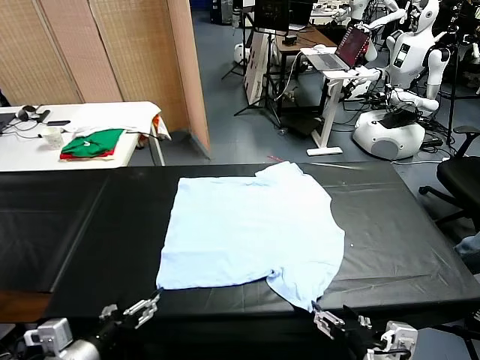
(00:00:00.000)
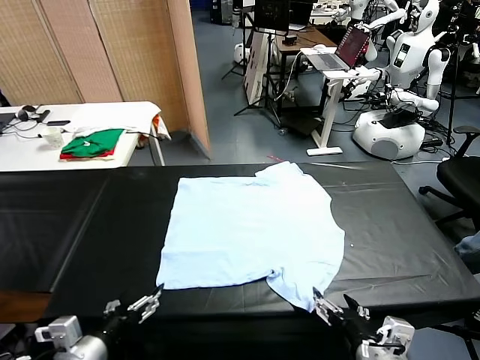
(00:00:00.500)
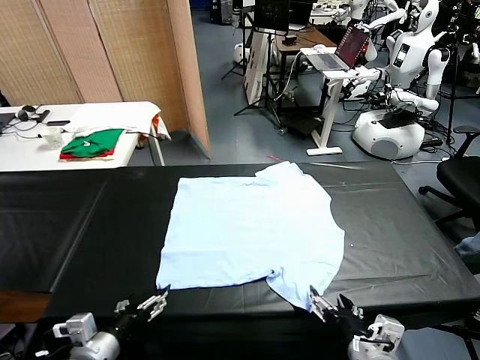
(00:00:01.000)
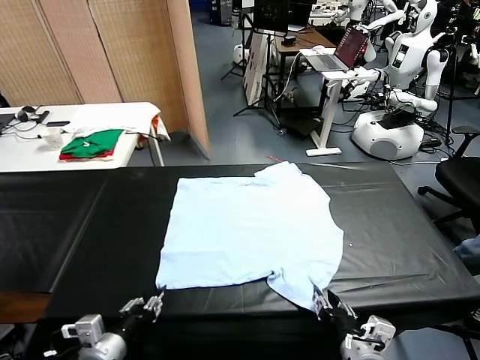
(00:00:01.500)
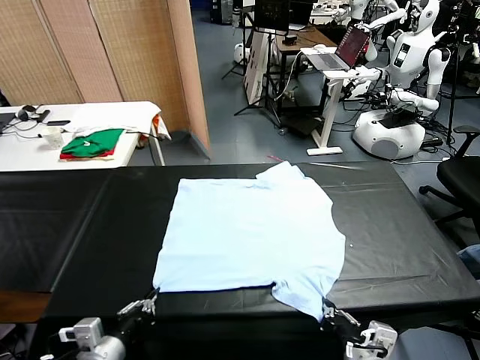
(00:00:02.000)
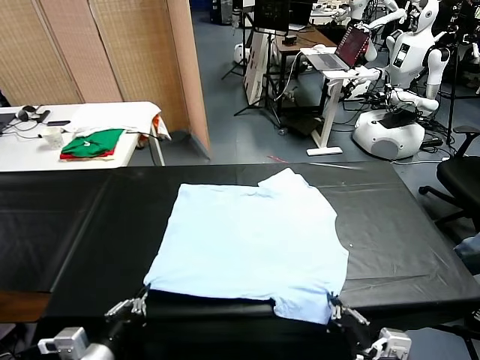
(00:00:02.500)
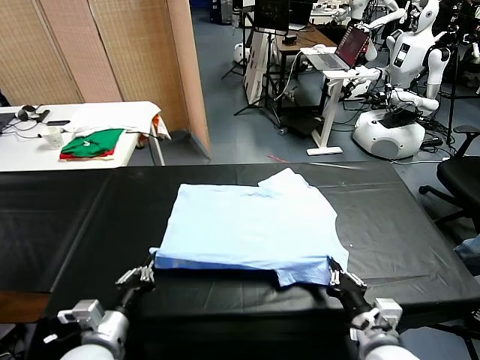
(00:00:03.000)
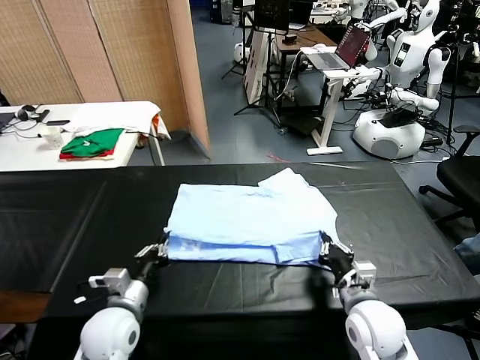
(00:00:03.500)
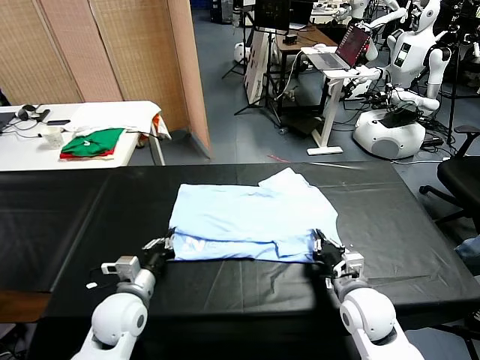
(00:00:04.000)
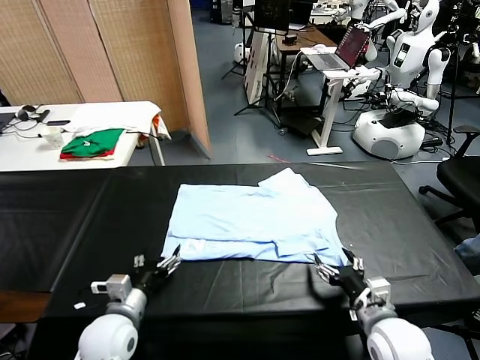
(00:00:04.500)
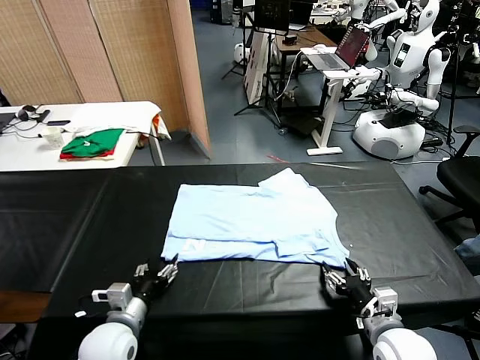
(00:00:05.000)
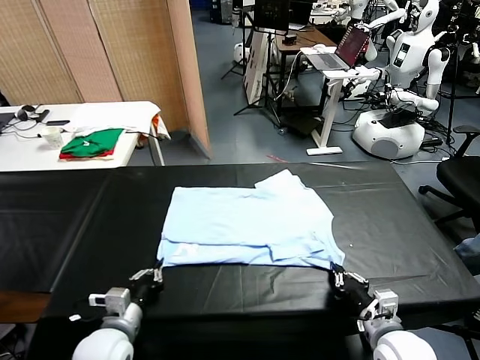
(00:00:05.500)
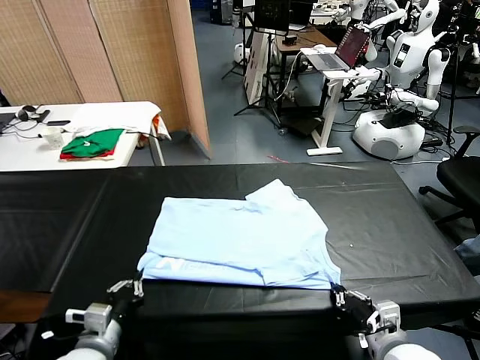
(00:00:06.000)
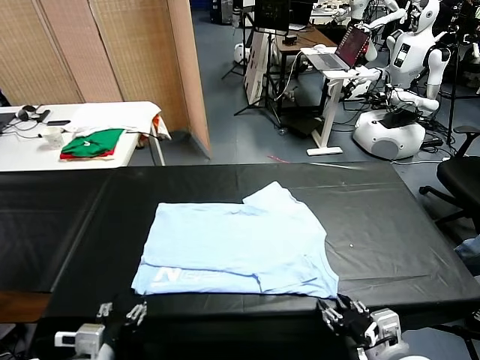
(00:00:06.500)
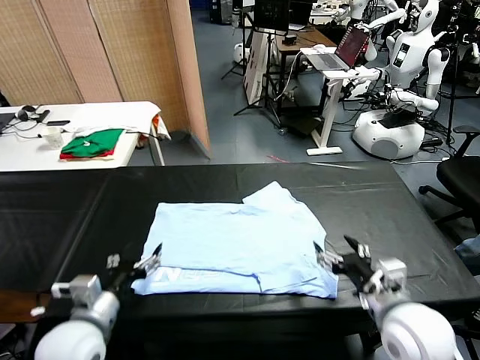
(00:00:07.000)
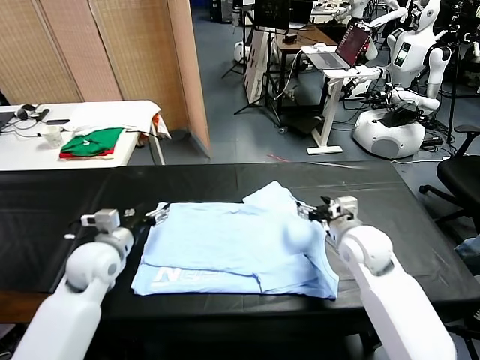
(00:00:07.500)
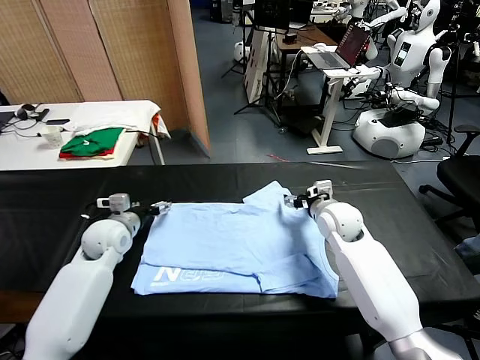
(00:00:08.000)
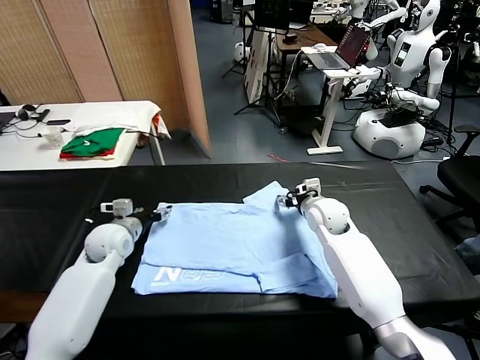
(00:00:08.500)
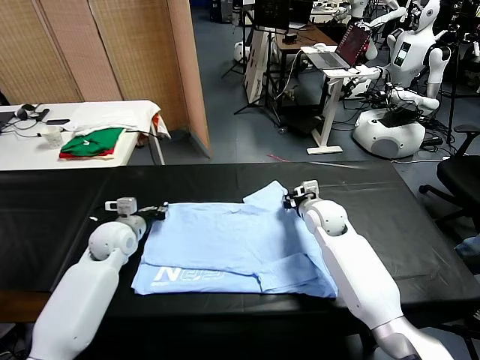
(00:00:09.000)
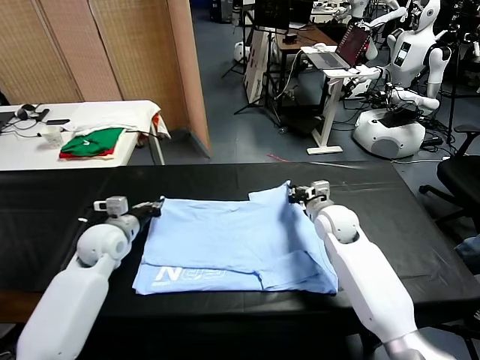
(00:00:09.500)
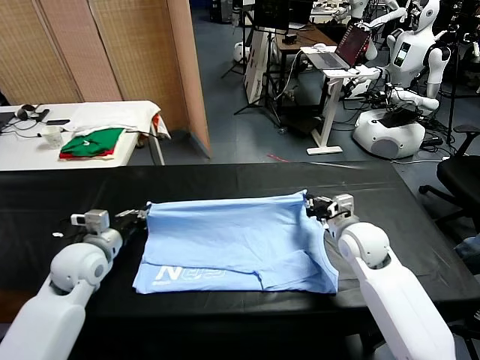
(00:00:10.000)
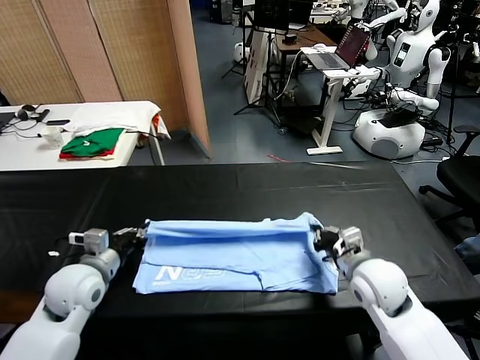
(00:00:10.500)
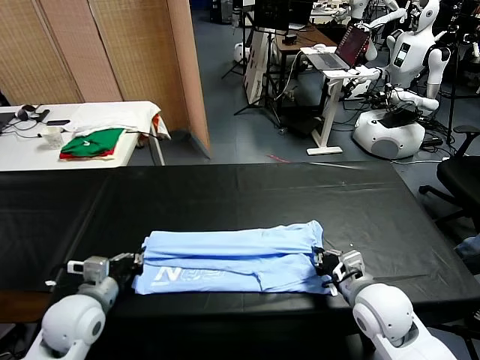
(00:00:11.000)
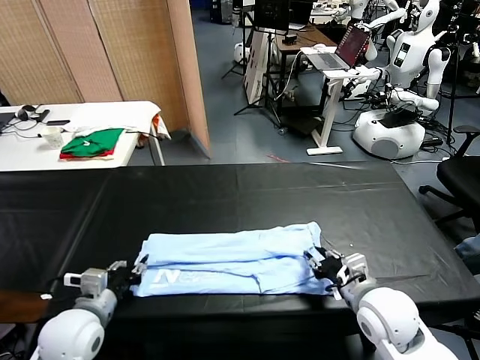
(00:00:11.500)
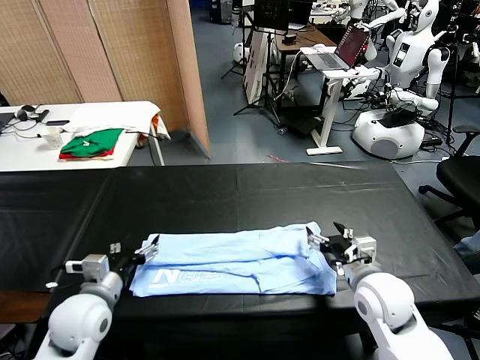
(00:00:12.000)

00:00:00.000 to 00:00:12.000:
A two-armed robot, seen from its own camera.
Task of the whole recording: fold and organize the clothes.
Step, 00:00:00.000 to 00:00:01.500: use both grippers simultaneously to clamp the lower edge of the clothing fabric.
Step, 00:00:02.000 to 00:00:04.000: use both grippers to drag the lower edge of the fabric forward and fold it over the upper edge.
Step, 00:00:04.500 to 00:00:06.500: Drag the clothes downward with both gripper.
Step, 00:00:07.000 to 00:00:08.500: use both grippers simultaneously to clamp the upper edge of the clothing fabric.
Step, 00:00:09.000 to 00:00:11.500: use both grippers to drag the upper edge of the fabric backward and fold it over the lower edge.
00:00:02.000 to 00:00:04.000: The grippers both shift forward by roughly 15 cm. The left gripper opens its fingers; the right gripper opens its fingers.
00:00:04.000 to 00:00:06.000: The two grippers go some 10 cm backward. The right gripper closes up. The left gripper closes its fingers.
00:00:06.000 to 00:00:08.000: The two grippers go some 30 cm forward. The right gripper opens. Meanwhile the left gripper opens up.
00:00:08.000 to 00:00:10.000: The right gripper moves backward and to the right, roughly 10 cm, and closes up; the left gripper travels backward by approximately 10 cm, and closes its fingers.
00:00:10.000 to 00:00:12.000: The two grippers go about 10 cm backward. The right gripper opens, while the left gripper opens.

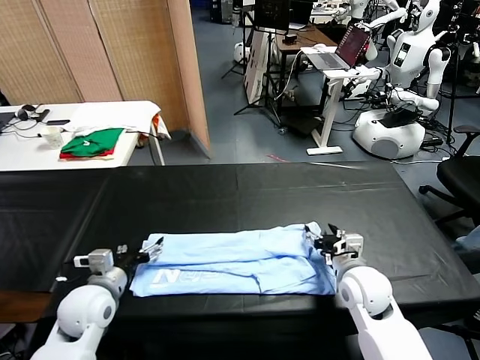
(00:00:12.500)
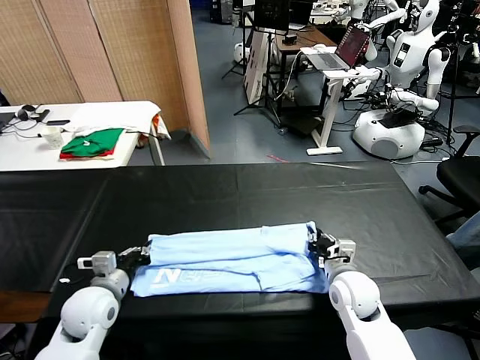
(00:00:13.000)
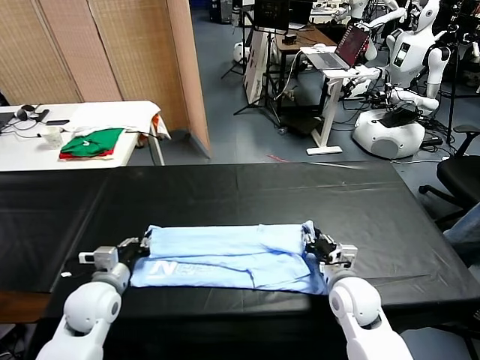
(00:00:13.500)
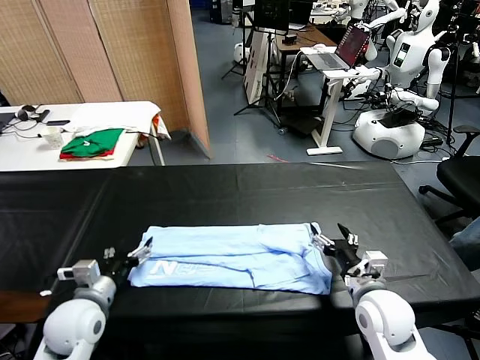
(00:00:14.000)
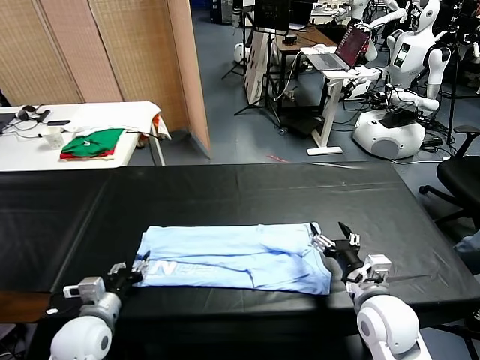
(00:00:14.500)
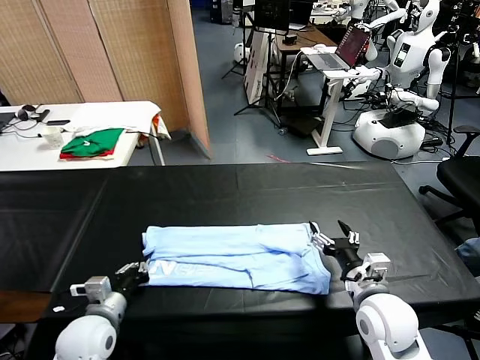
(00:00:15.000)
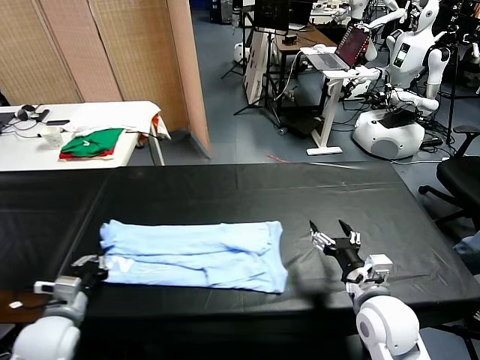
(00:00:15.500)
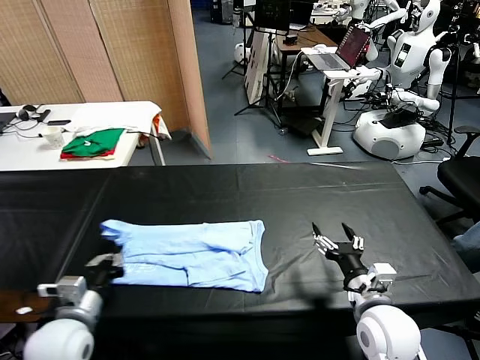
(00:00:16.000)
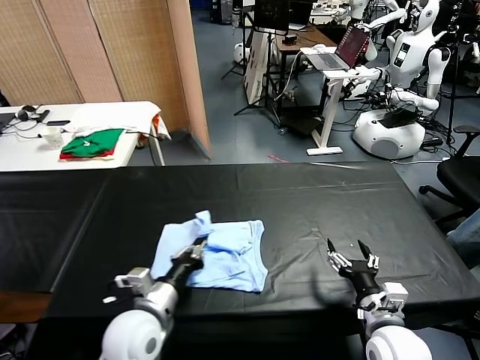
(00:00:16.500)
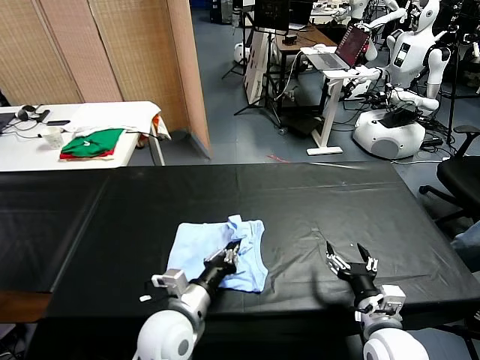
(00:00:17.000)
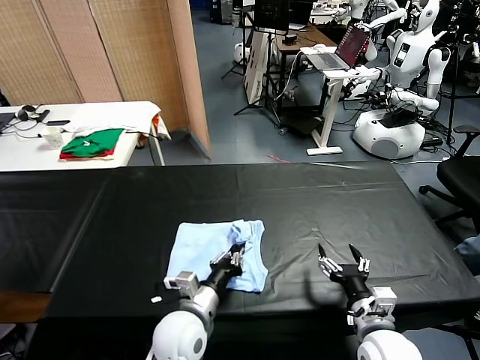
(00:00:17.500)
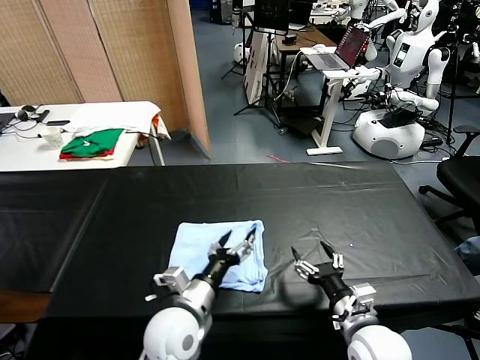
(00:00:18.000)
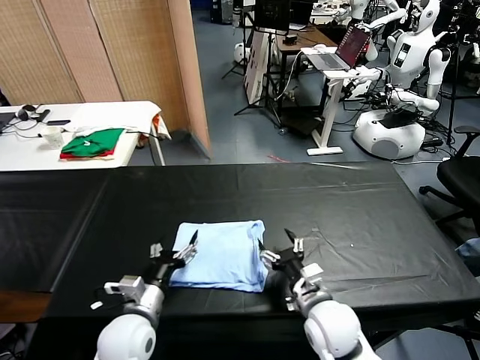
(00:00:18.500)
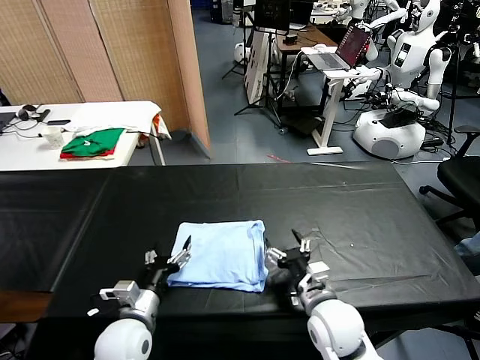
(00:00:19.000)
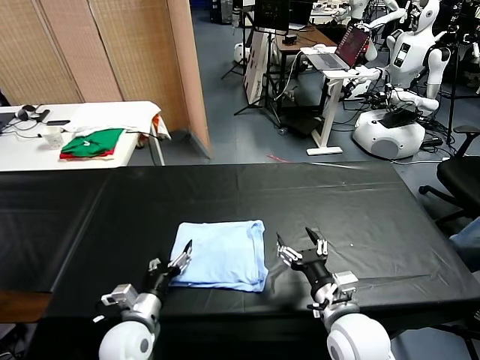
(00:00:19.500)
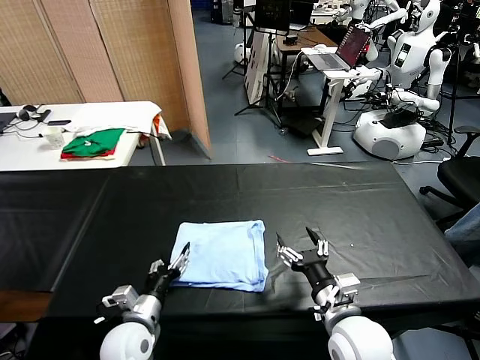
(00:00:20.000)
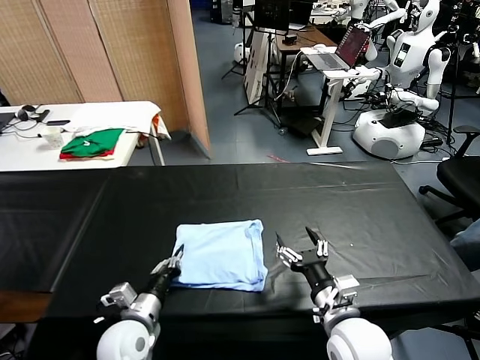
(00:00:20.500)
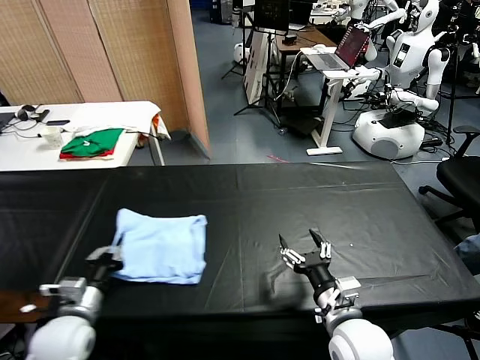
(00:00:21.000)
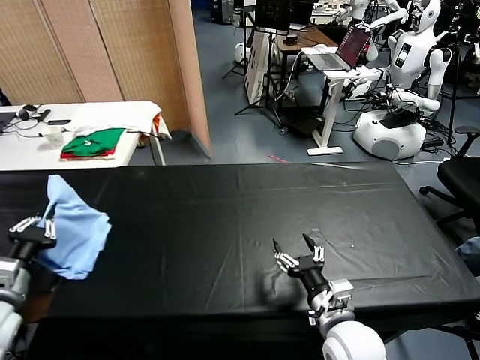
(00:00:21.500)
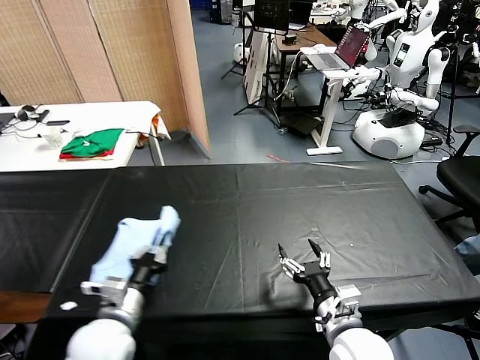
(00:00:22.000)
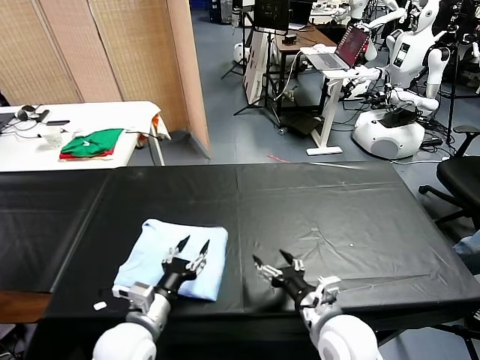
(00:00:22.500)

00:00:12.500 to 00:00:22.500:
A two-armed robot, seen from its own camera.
Task of the whole recording: fold and organize the clothes.
Step, 00:00:12.500 to 00:00:14.500: use the left gripper to clamp the left edge of the fabric.
Step, 00:00:15.000 to 00:00:17.500: use the left gripper to drag the left edge of the fabric to the left and folds it over the right edge.
Step, 00:00:18.000 to 00:00:22.000: Flip the folded clothes over with left gripper.
00:00:12.500 to 00:00:14.500: The grippers both shift backward by about 5 cm. The left gripper closes. The right gripper closes, then opens again.
00:00:14.500 to 00:00:16.500: The left gripper travels to the right by roughly 10 cm, and closes up; the right gripper ends up some 5 cm from where it was.
00:00:16.500 to 00:00:18.500: The right gripper moves to the left and forward, roughly 10 cm, while the left gripper travels to the right and back again, approximately 5 cm each way, and opens up.
00:00:18.500 to 00:00:20.500: The right gripper shifts by about 5 cm; the left gripper closes up.
00:00:20.500 to 00:00:22.500: The left gripper travels upward by approximately 5 cm, travels to the left and back again, roughly 20 cm each way, and opens up.

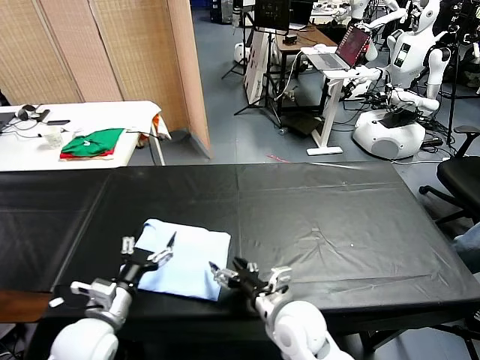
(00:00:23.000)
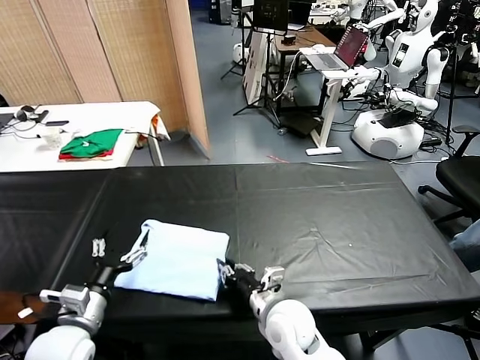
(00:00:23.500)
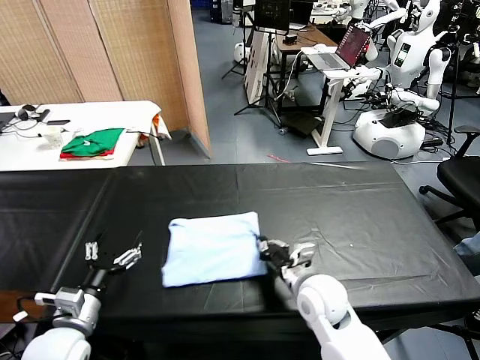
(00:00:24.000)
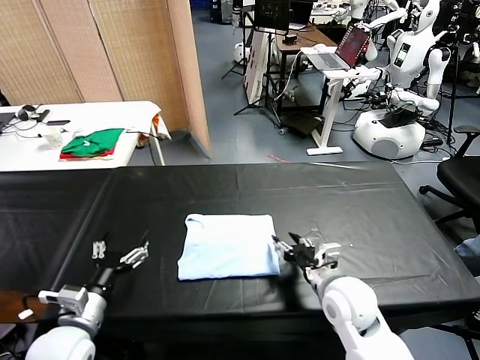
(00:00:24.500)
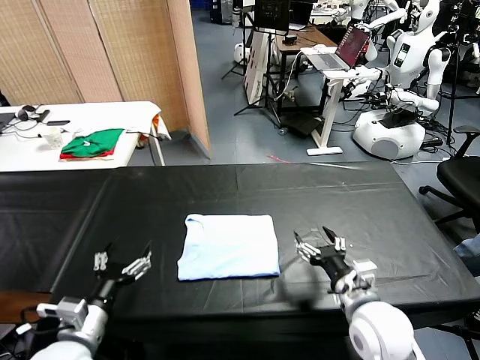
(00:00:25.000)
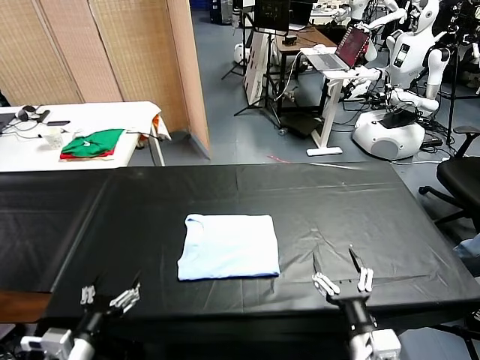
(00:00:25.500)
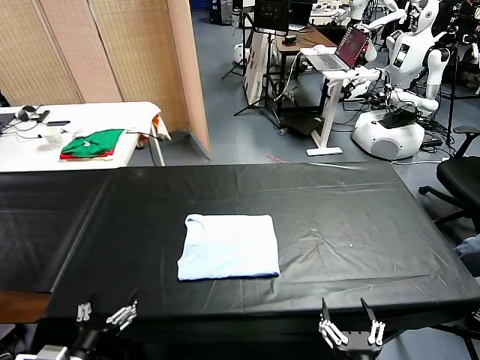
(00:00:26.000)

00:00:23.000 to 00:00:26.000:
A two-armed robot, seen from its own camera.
Task of the whole recording: fold and organize the clothes.
Step, 00:00:23.000 to 00:00:24.000: Drag the clothes to the center of the table.
00:00:23.000 to 00:00:24.500: The right gripper goes roughly 10 cm to the right, and closes up.
00:00:24.500 to 00:00:26.000: The right gripper moves backward, some 25 cm, and opens its fingers; the left gripper shifts about 10 cm backward.
